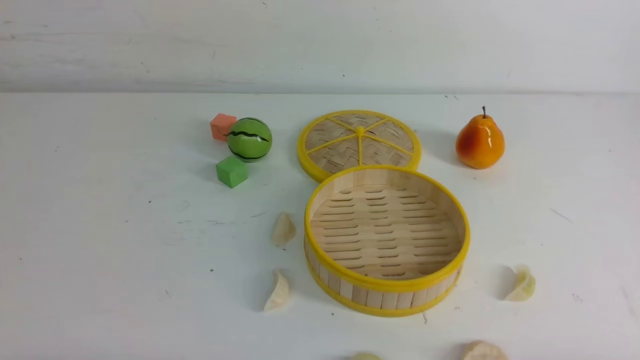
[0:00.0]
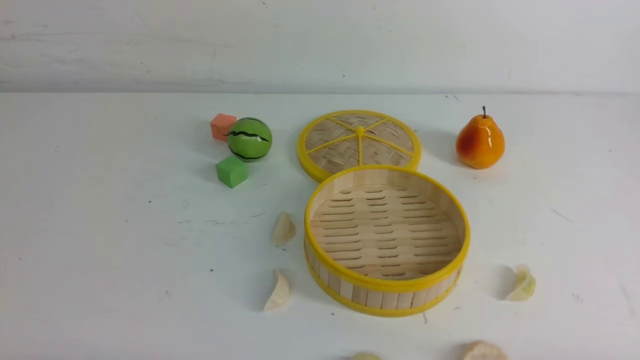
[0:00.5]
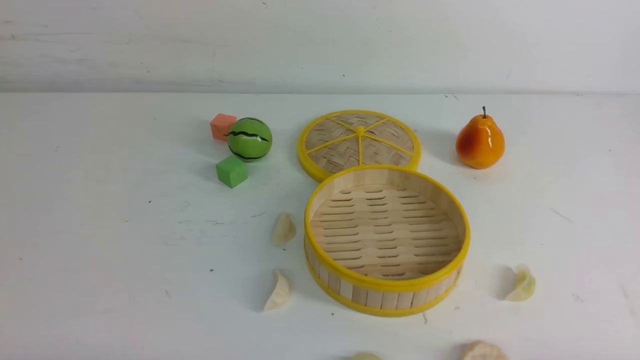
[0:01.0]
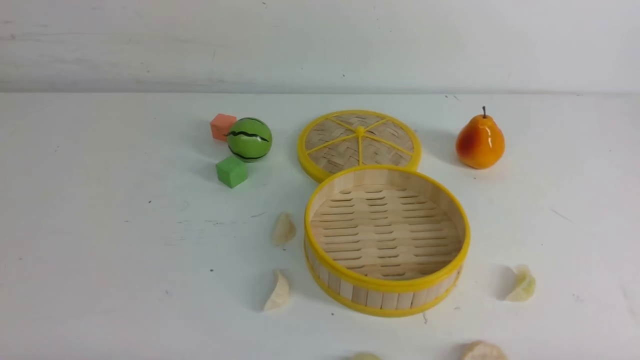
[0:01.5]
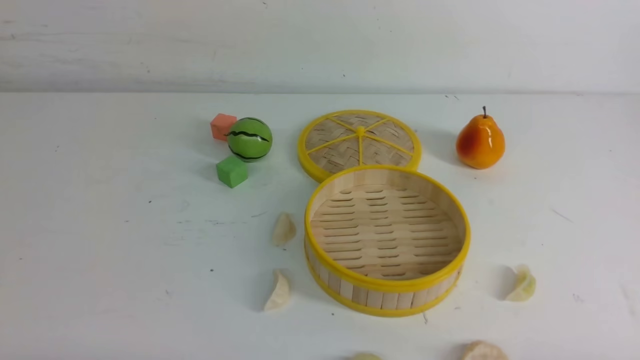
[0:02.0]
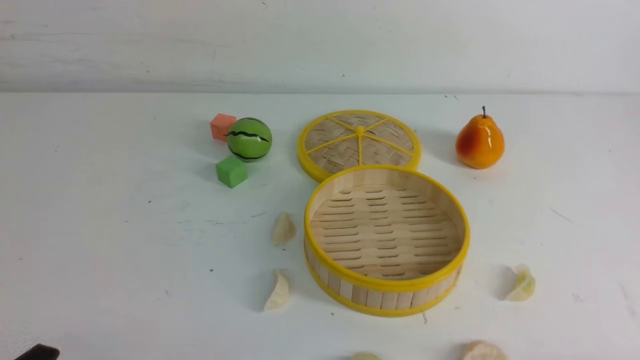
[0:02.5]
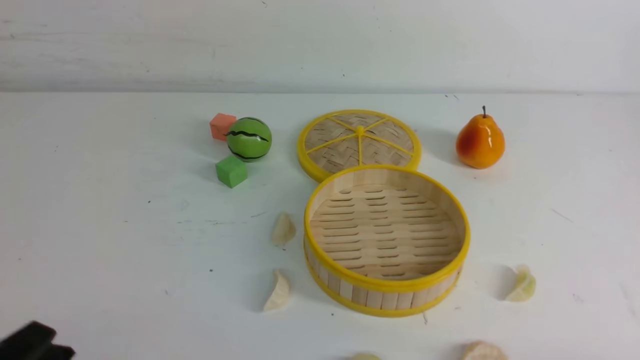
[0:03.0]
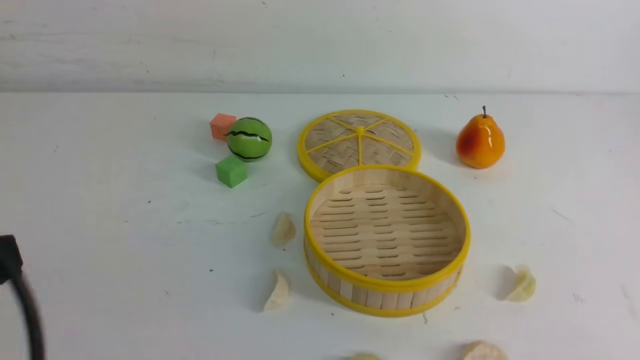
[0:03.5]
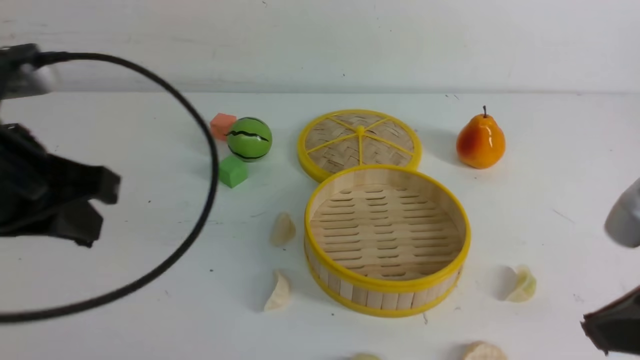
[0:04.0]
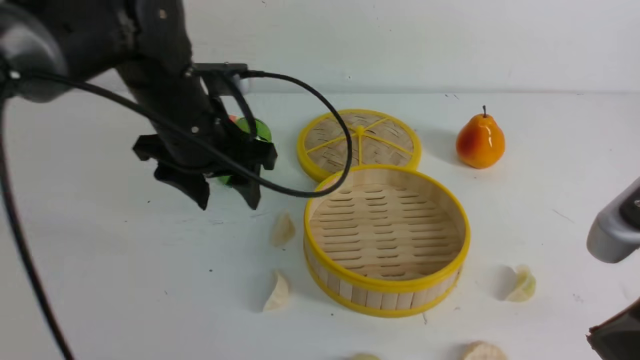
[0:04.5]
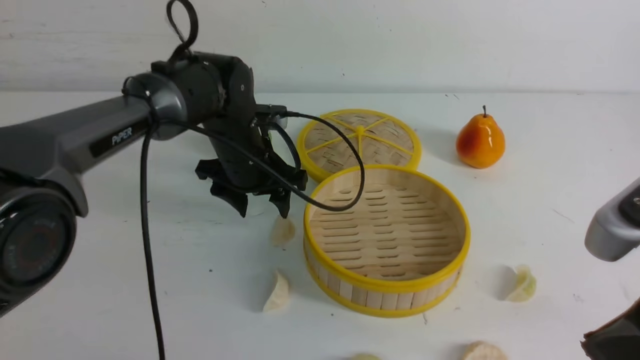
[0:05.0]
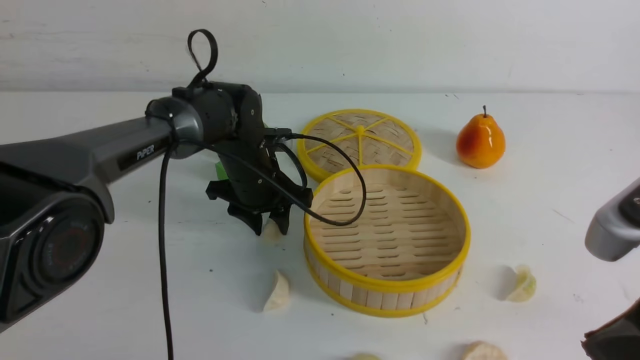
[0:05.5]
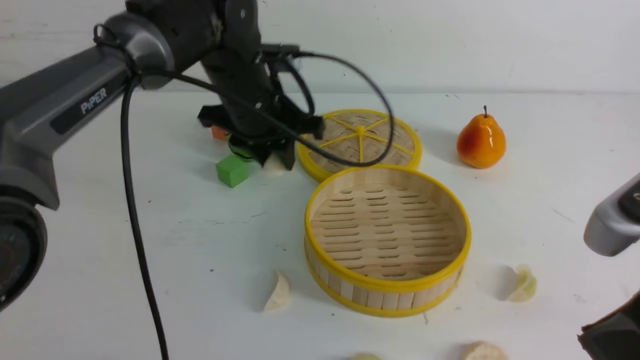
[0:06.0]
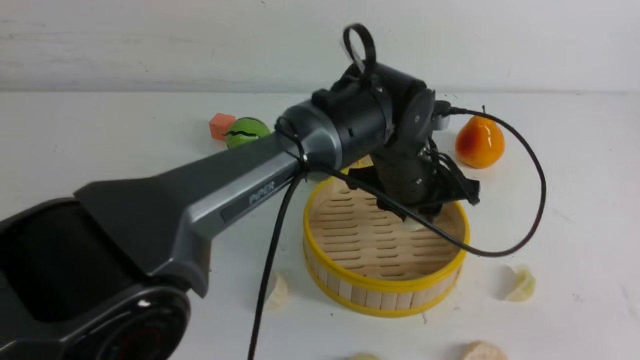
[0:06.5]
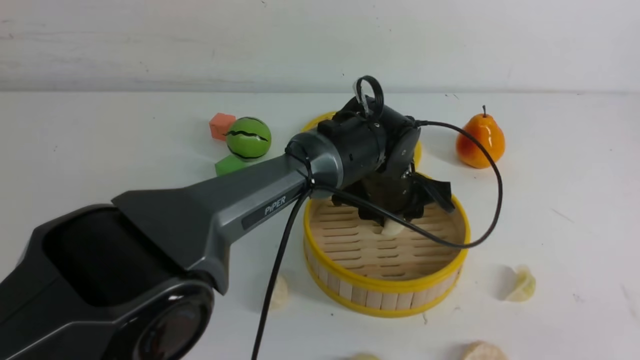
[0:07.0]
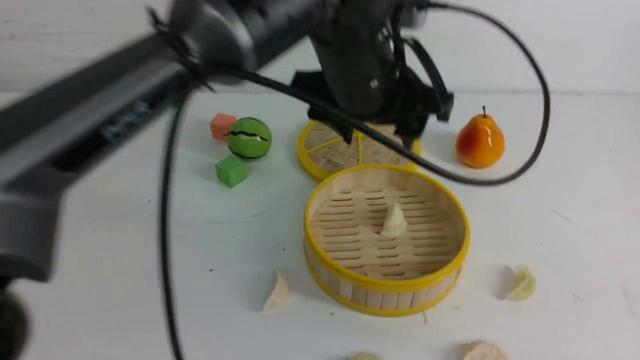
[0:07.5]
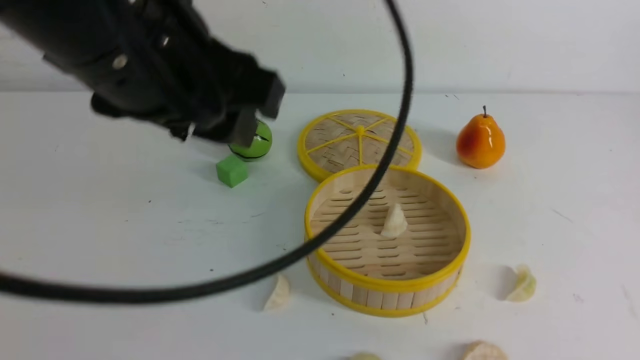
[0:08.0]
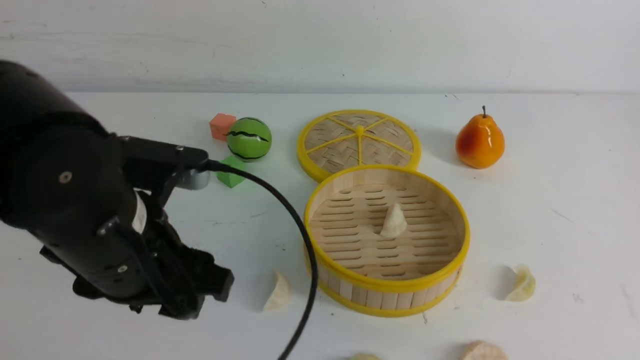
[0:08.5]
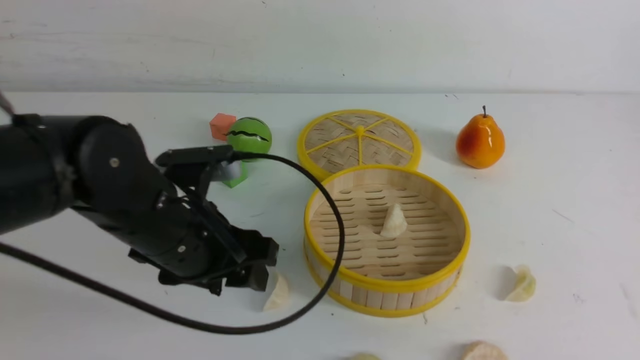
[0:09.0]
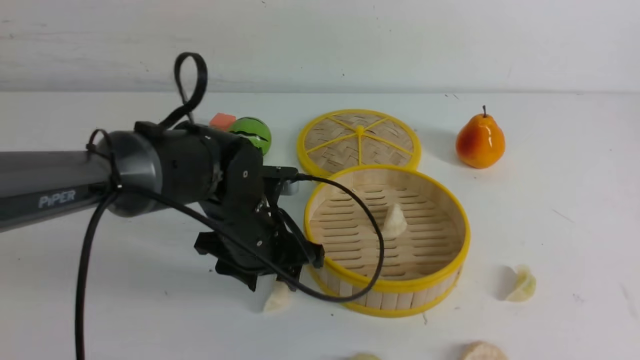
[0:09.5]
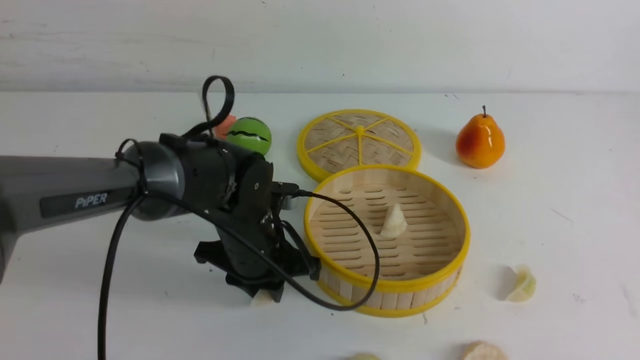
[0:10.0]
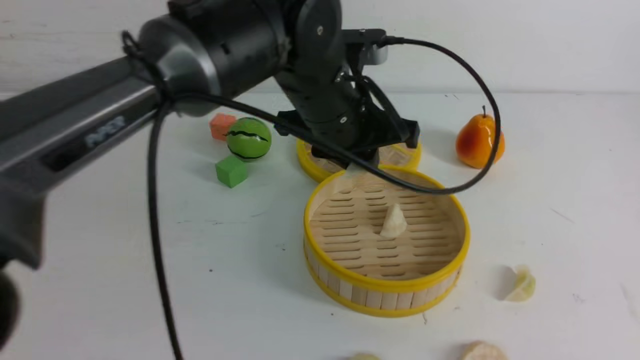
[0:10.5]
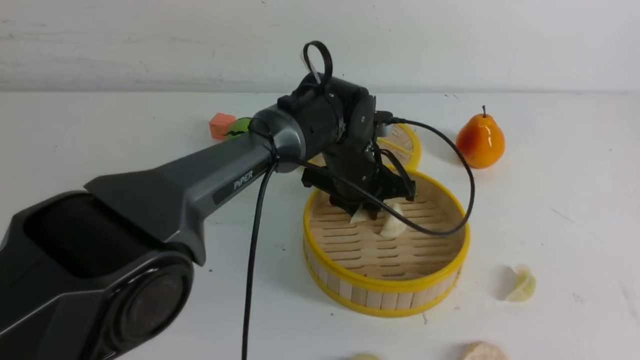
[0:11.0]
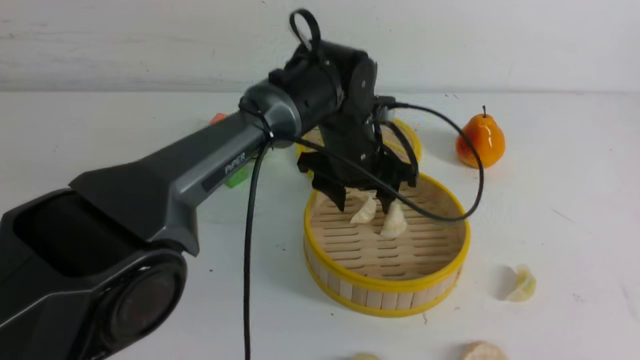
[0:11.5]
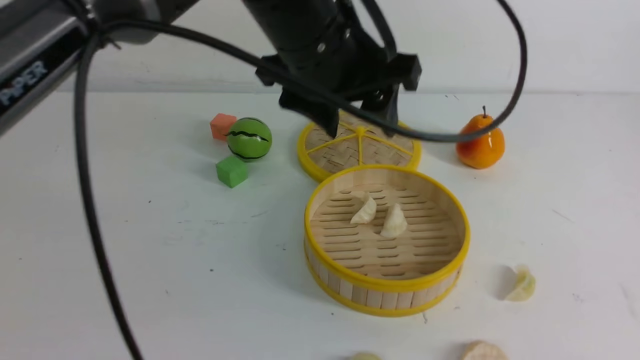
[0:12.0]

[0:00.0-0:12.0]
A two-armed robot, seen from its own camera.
Task of the whole recording: put the dumplings into the steamer on the white table.
Step, 0:00.0 to 0:05.5: use the left arm to grab a dumpling.
Step, 0:06.0 to 0:07.0: use the left arm to put the dumpling into the steamer.
Step, 0:07.5 to 0:10.0: use the left arm to grab a dumpling.
Step, 0:10.5 to 0:11.5: use the left arm to put the dumpling into the steamer.
0:00.0 to 0:02.0: Both grippers stay about where they are.
0:02.0 to 0:04.0: The left gripper heads upward and forward, covering approximately 25 cm. The right gripper goes roughly 20 cm upward, forward and to the left, and closes up.
0:04.0 to 0:06.0: The left gripper goes about 25 cm forward, to the right and downward, and opens, then closes again.
0:06.0 to 0:08.0: The left gripper moves backward and upward, approximately 25 cm, and opens up, while the right gripper goes approximately 10 cm upward.
0:08.0 to 0:10.0: The left gripper shifts approximately 25 cm downward and forward, and closes.
0:10.0 to 0:12.0: The left gripper swings up and down, approximately 20 cm each way, with 2 reversals, and opens.

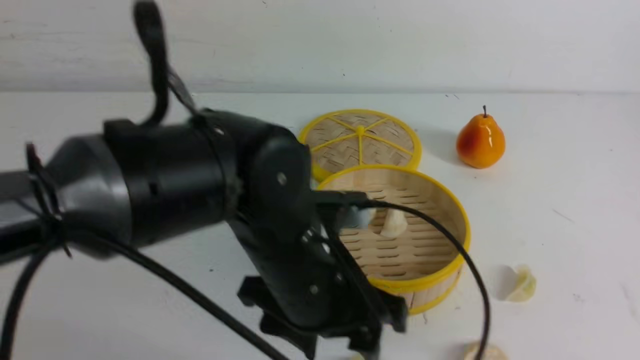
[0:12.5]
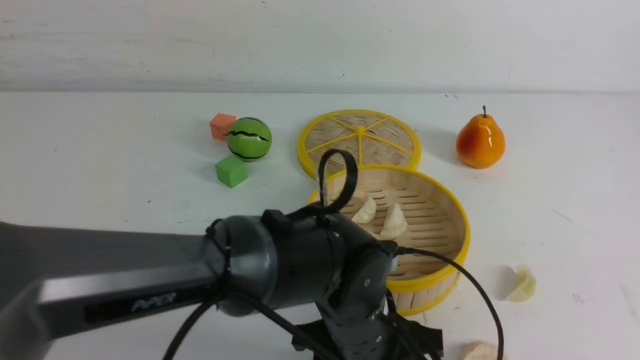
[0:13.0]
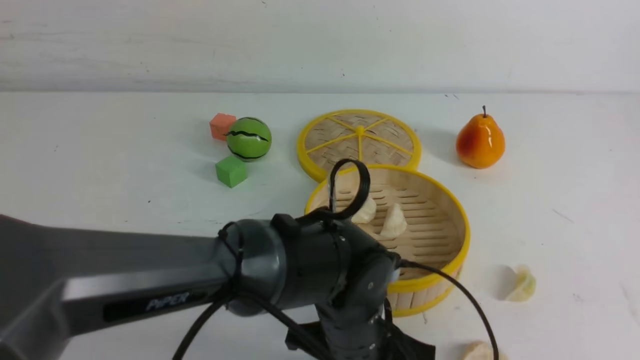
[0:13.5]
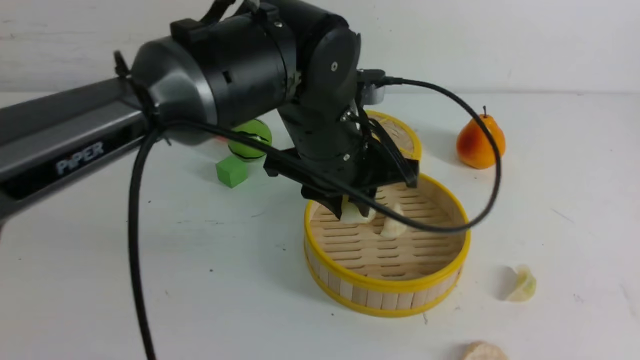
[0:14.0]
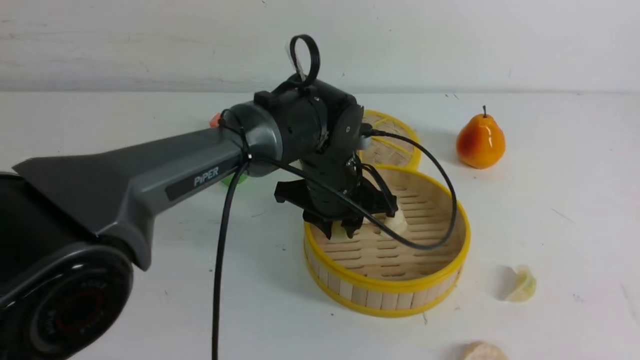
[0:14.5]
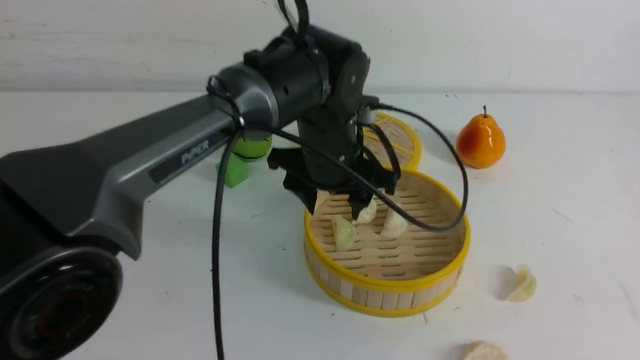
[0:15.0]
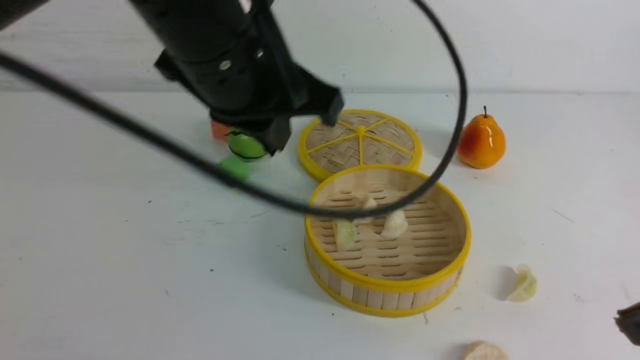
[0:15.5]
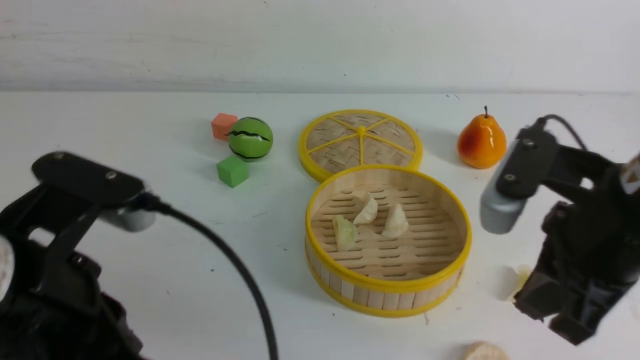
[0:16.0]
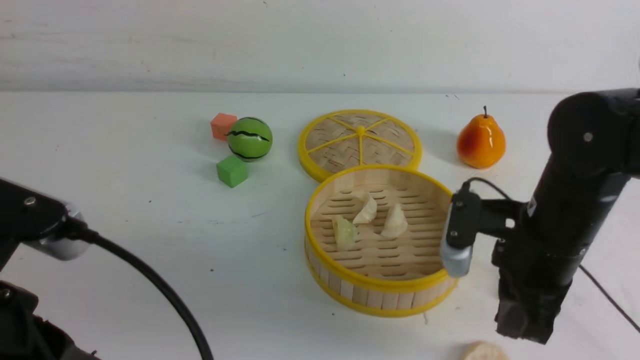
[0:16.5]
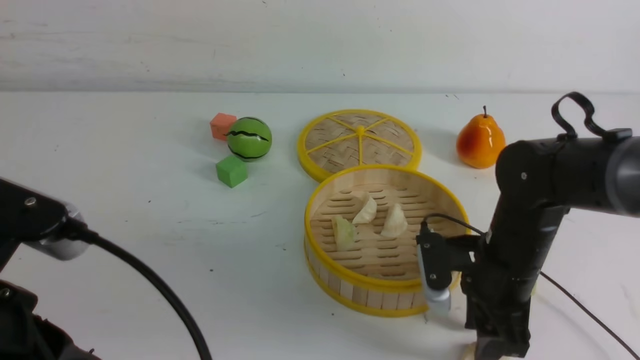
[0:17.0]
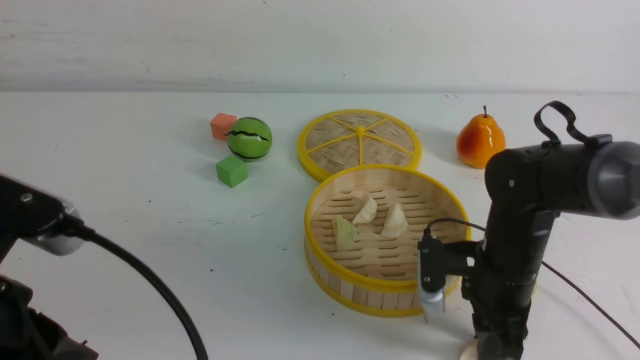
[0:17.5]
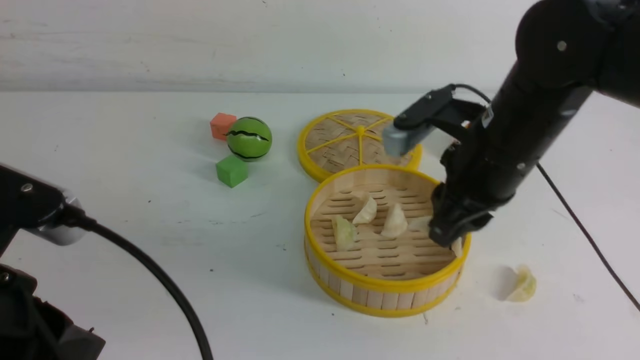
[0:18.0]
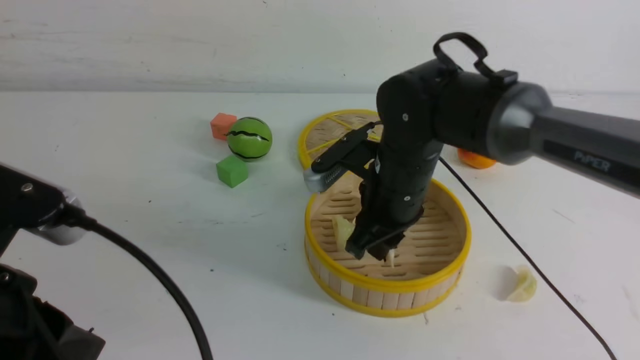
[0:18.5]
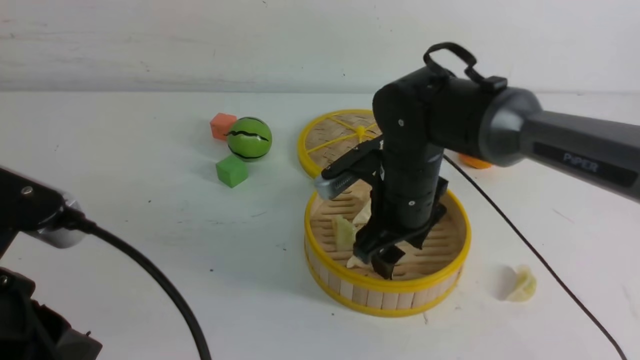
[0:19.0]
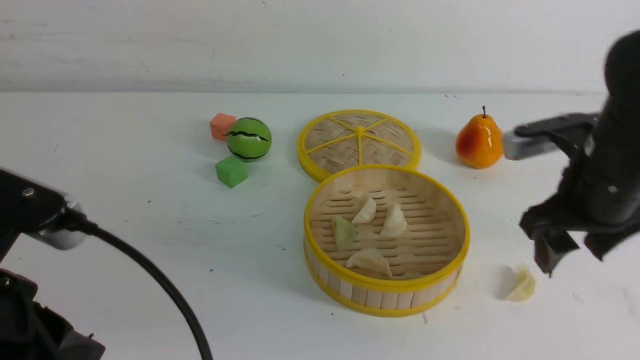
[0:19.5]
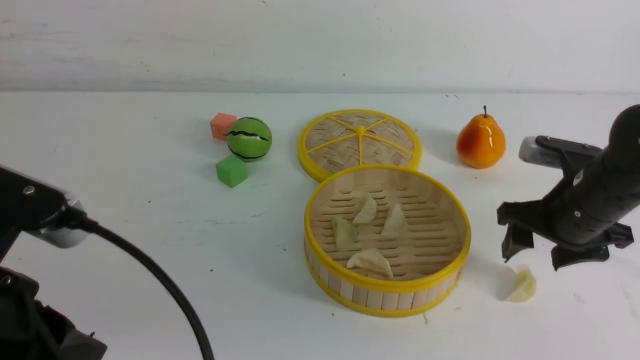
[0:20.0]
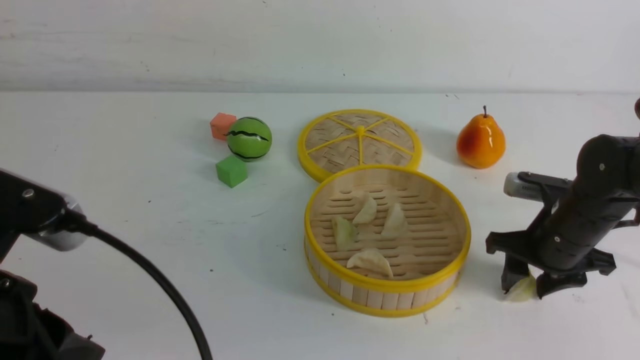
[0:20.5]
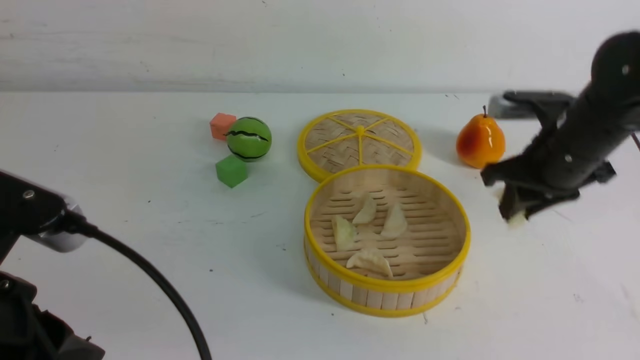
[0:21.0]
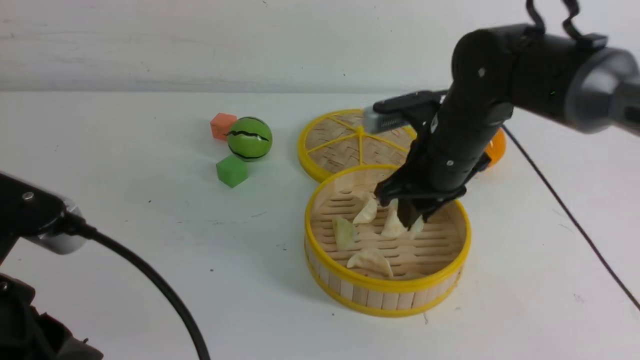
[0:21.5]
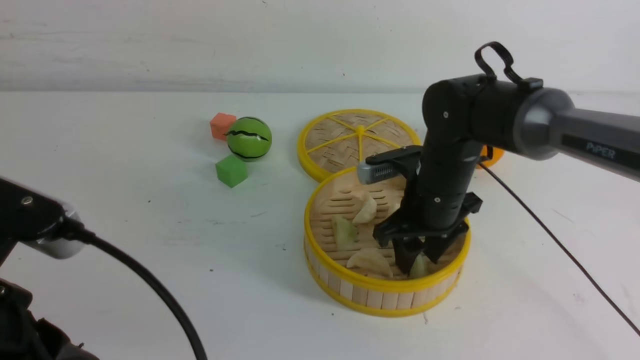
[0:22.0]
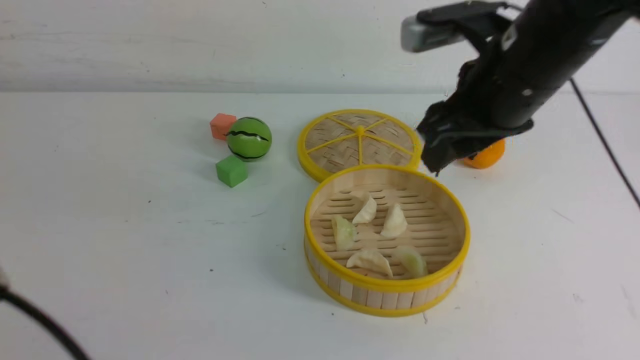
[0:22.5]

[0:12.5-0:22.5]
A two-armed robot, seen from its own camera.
Task of the whole recording: put the dumplings into the steamer on the white table.
Step, 0:12.5 to 0:13.5: use the left arm to grab a dumpling.
Step, 0:14.0 to 0:14.5: use the left arm to put the dumpling into the steamer.
Step, 0:15.0 to 0:17.5: use the right arm to grab a dumpling.
Step, 0:18.0 to 0:19.0: use the right arm to put the dumpling into the steamer.
Step, 0:19.5 to 0:20.5: use the right arm to grab a dumpling.
Step, 0:21.0 to 0:22.0: use the right arm to put the dumpling into the steamer.
0:12.5 to 0:14.5: The left gripper is displaced forward by about 15 cm, and closes its fingers.
0:14.5 to 0:16.5: The right gripper shifts about 25 cm forward and downward; the left gripper shifts some 35 cm backward, to the left and upward, and closes.
0:16.5 to 0:18.5: The right gripper swings up and down, some 10 cm each way, with 2 reversals.
0:18.5 to 0:20.5: The right gripper shifts some 20 cm to the right.
0:20.5 to 0:22.5: The right gripper moves up and down over approximately 20 cm, changing direction 2 times; the left gripper ends up roughly 5 cm from where it was.
